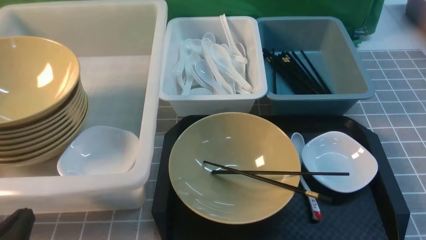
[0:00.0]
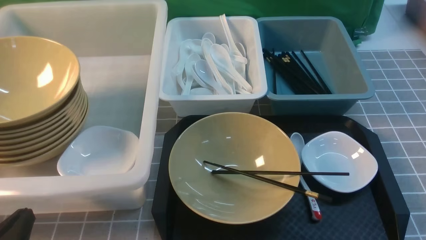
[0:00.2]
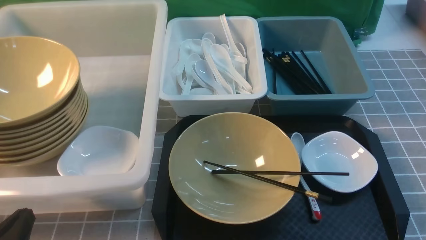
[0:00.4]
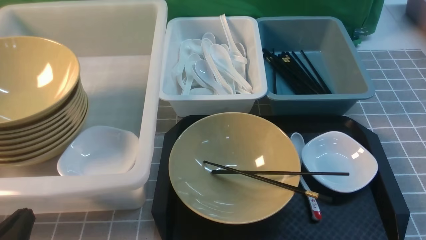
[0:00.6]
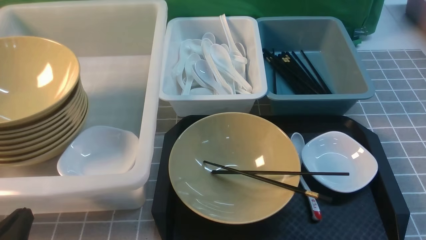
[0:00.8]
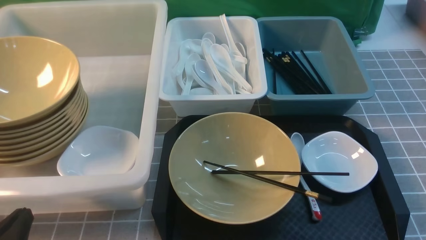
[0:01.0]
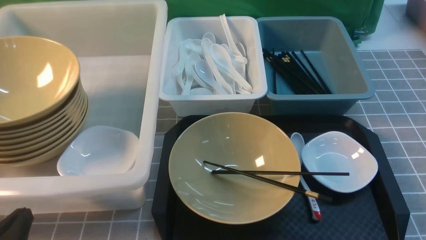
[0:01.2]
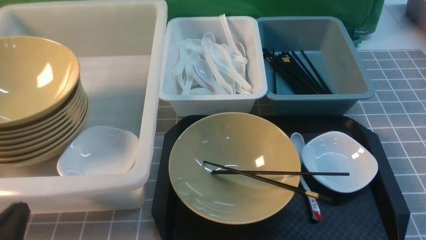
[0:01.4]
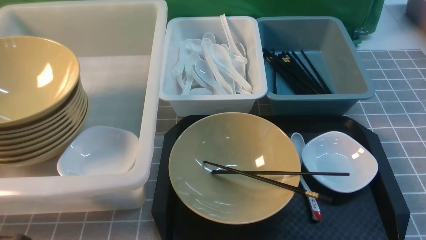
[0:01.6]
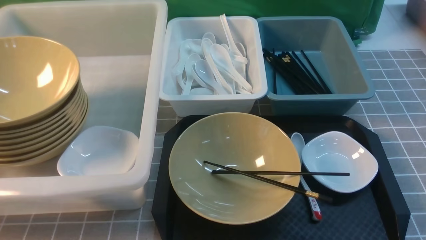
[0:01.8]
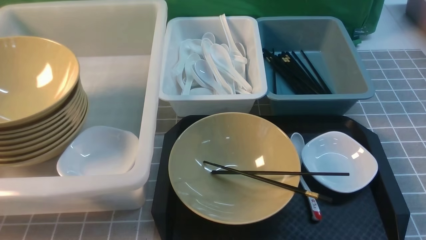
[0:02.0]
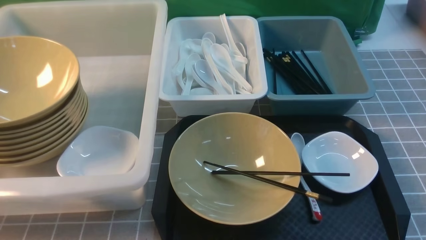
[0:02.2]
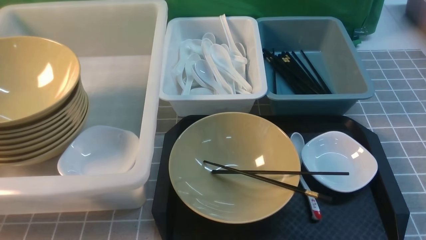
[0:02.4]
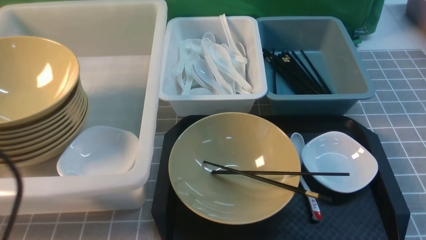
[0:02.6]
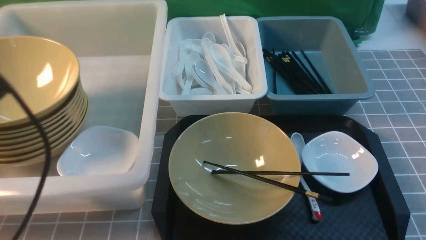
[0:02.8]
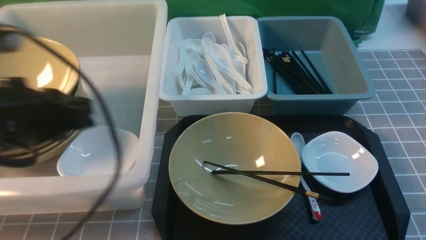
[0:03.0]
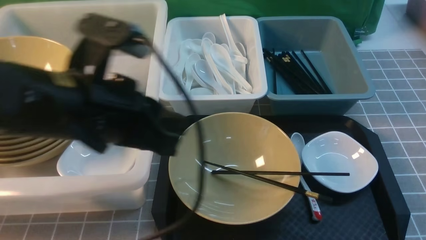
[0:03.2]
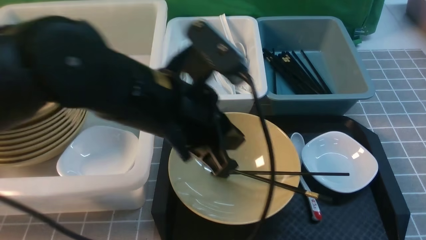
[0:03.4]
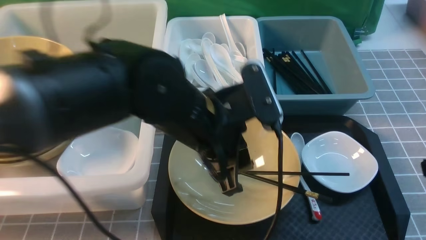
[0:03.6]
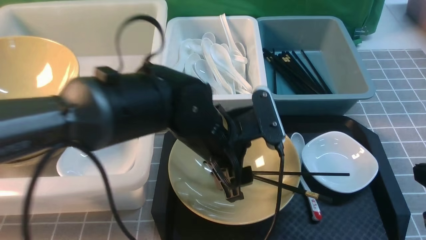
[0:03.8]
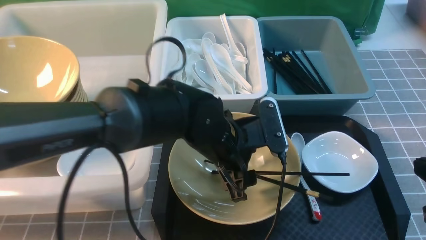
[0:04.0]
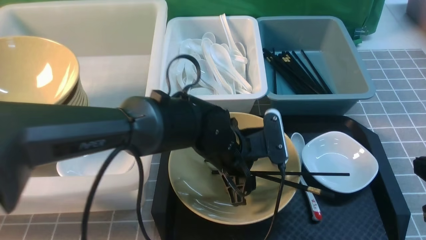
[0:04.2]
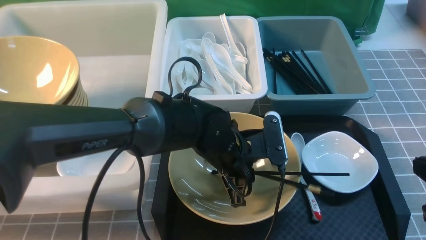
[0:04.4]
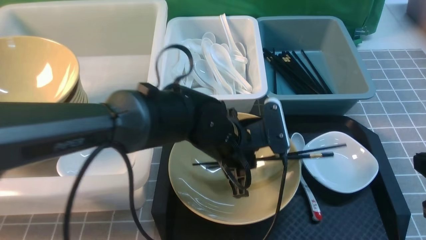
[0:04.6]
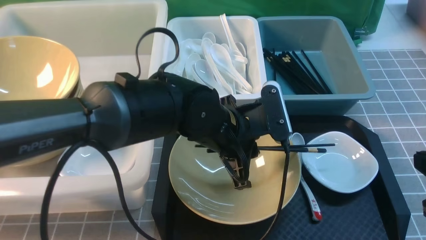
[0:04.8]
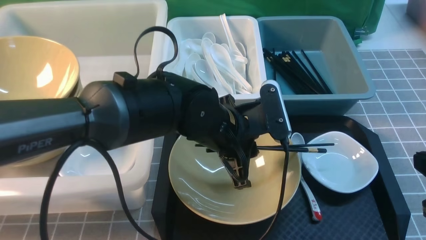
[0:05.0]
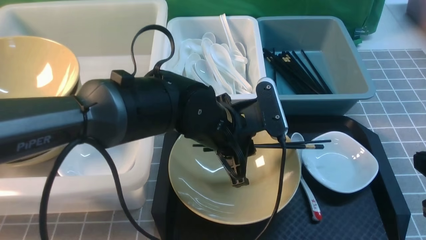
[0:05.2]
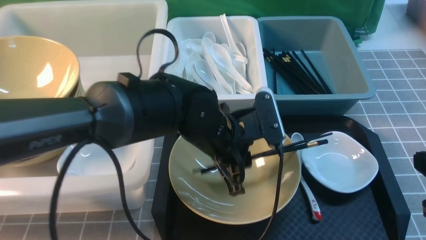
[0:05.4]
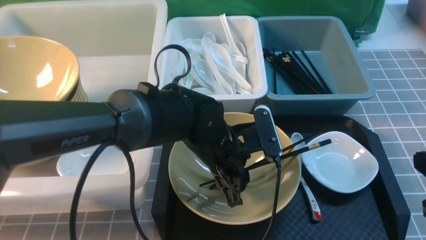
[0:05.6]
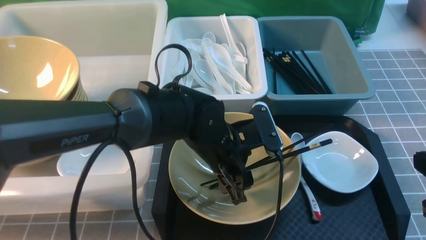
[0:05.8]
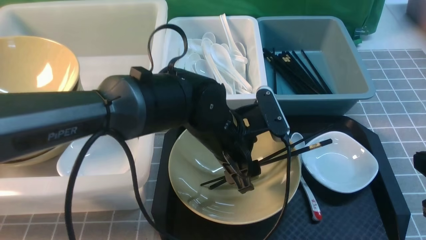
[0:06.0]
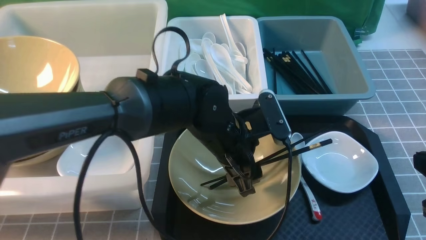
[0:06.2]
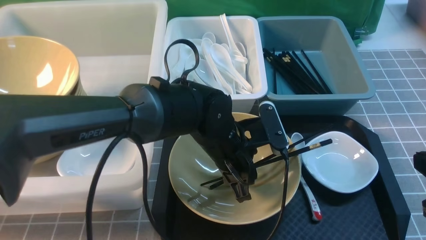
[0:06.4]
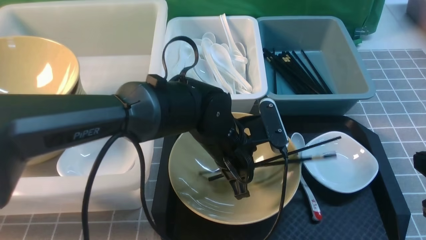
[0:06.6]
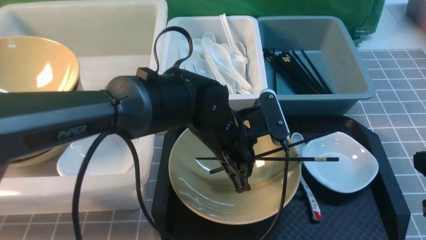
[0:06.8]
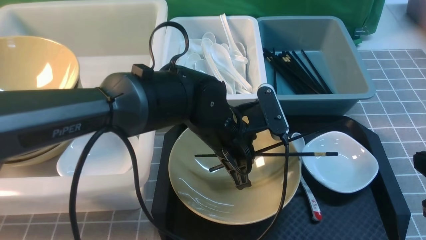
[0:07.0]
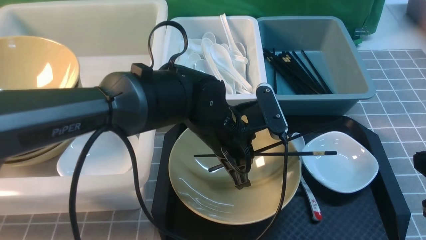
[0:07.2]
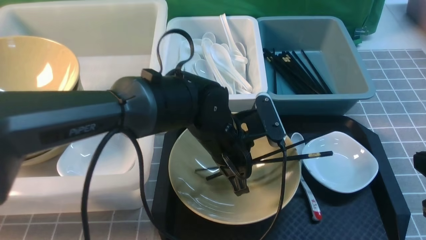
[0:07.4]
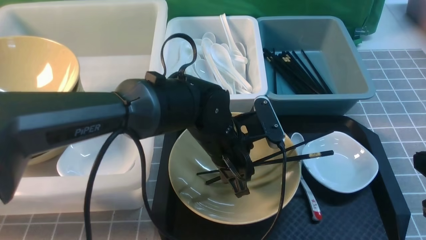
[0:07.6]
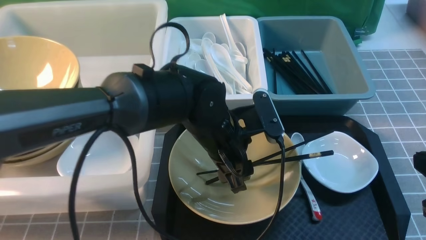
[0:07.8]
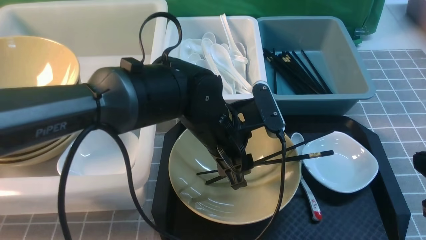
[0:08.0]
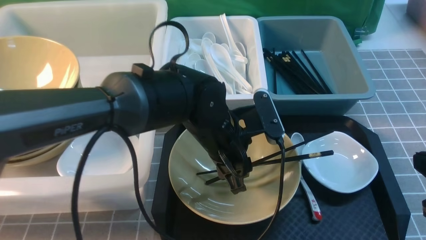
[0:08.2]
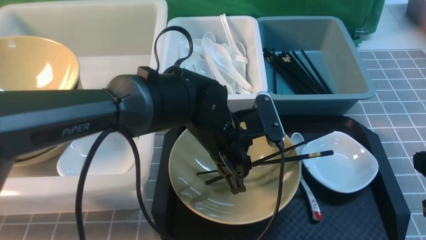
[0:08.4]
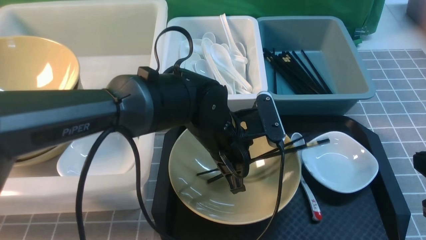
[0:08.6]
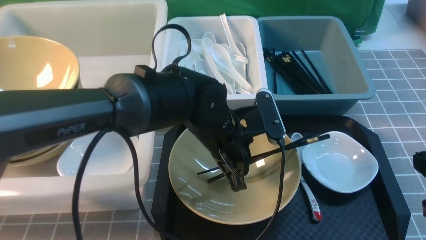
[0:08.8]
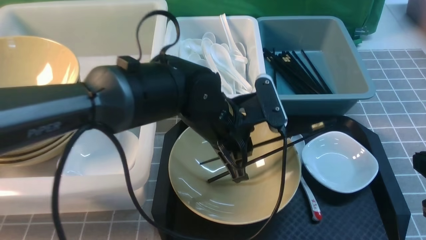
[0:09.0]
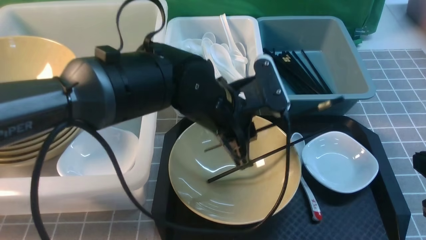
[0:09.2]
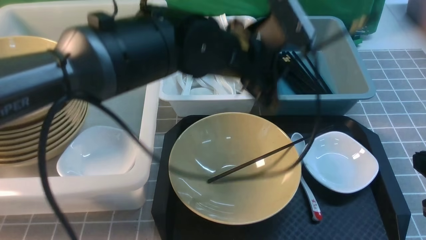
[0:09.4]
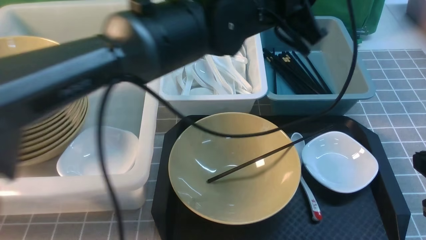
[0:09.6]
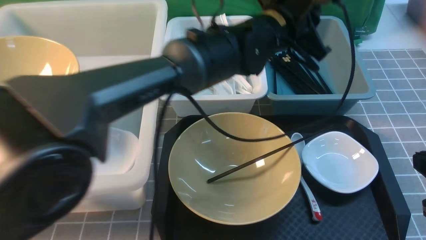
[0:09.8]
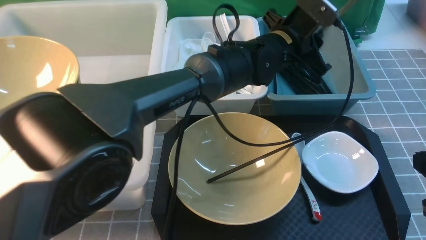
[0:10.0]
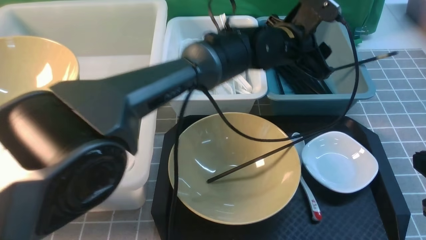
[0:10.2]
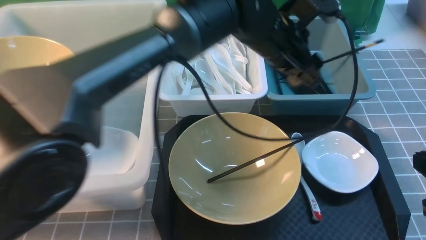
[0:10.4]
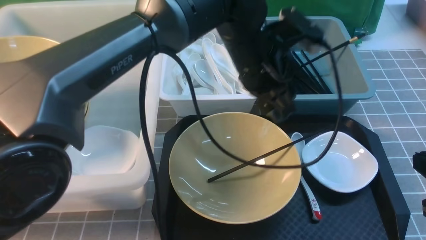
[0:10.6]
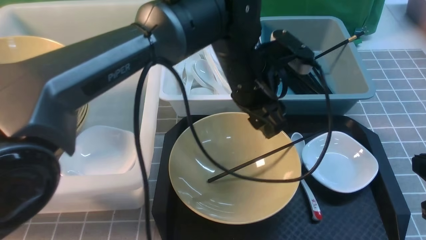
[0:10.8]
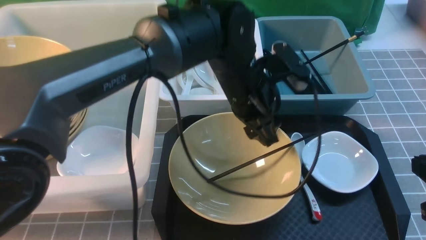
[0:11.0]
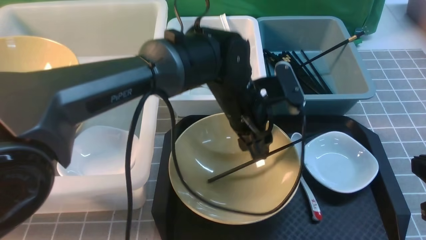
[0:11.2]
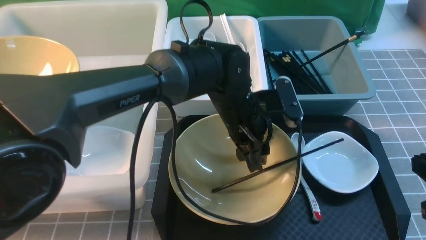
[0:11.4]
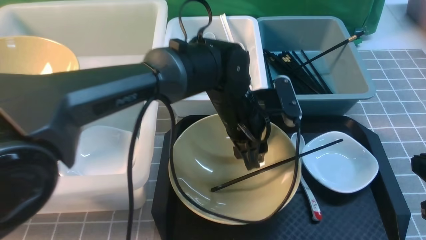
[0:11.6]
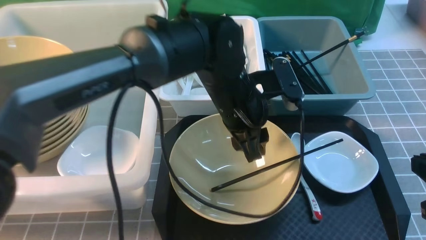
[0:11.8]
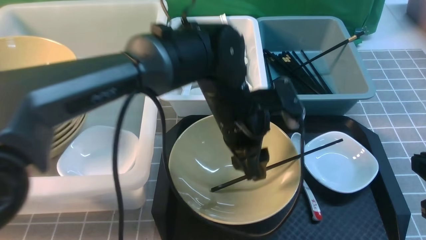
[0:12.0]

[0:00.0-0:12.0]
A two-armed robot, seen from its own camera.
Task of the whole recording: on grey table put chopsticks spoon bowls plates into blue grey white boxes.
Step, 0:00.0 to 0:09.0: use the left arm to grab a chopstick.
Step, 0:09.2 to 0:10.2: use the left arm to put a chopstick into the small storage box on the right.
0:01.6 to 0:03.0: The left gripper goes approximately 20 cm upward and forward, while the right gripper shifts approximately 10 cm upward, and closes.
0:03.0 to 0:04.4: The left gripper shifts about 30 cm to the right, downward and forward, and opens.
0:04.4 to 0:06.0: The left gripper opens its fingers.
0:06.0 to 0:07.6: The left gripper closes.
0:07.6 to 0:09.0: The left gripper closes up.
0:09.0 to 0:10.4: The left gripper goes roughly 15 cm forward, to the right and upward, and opens up.
0:10.4 to 0:12.0: The left gripper goes about 10 cm backward, to the left and downward.

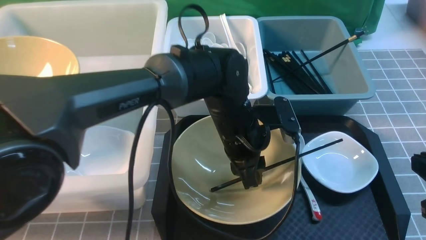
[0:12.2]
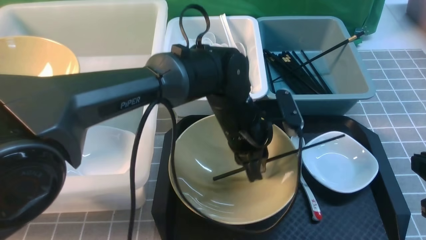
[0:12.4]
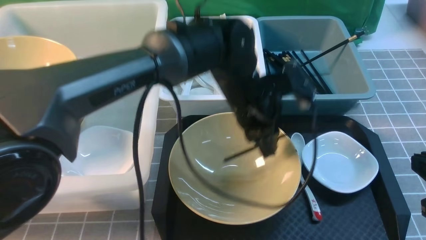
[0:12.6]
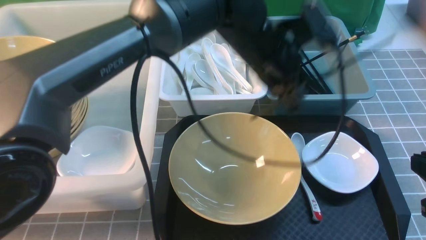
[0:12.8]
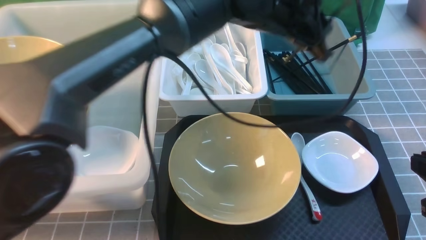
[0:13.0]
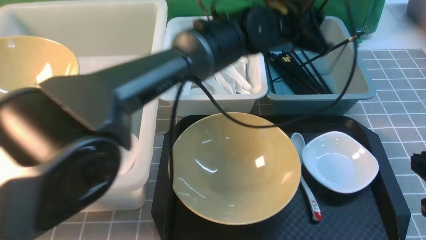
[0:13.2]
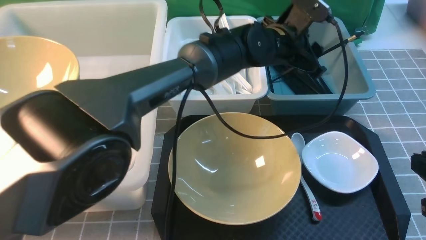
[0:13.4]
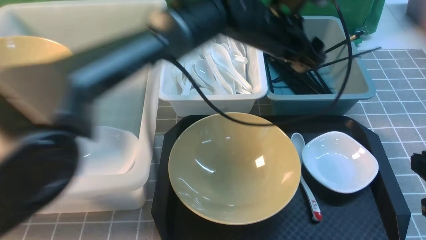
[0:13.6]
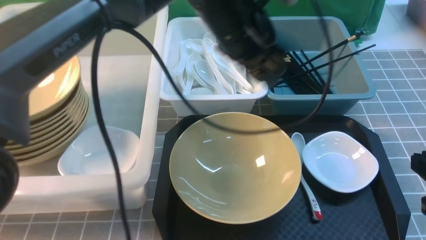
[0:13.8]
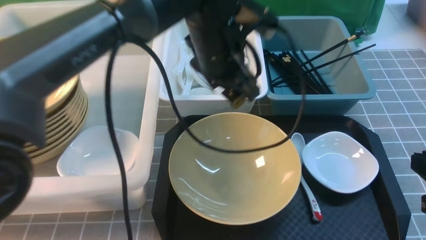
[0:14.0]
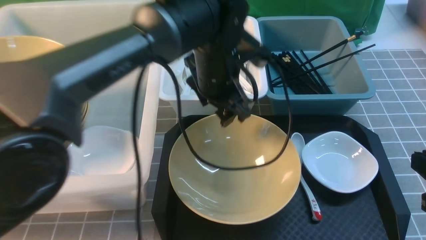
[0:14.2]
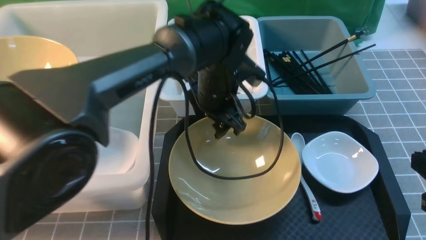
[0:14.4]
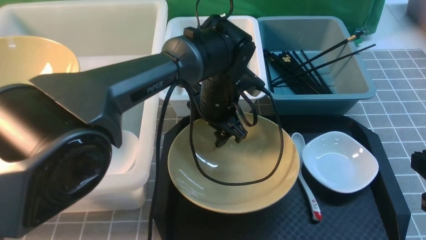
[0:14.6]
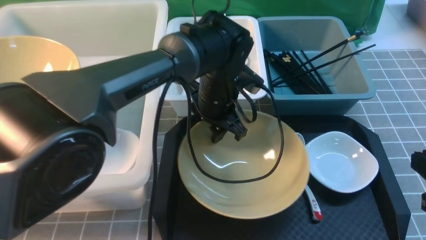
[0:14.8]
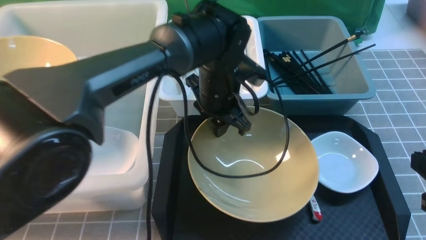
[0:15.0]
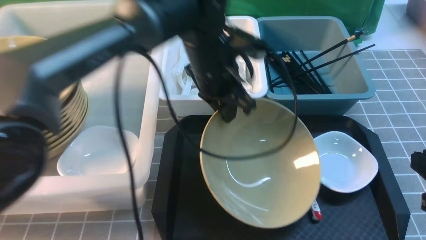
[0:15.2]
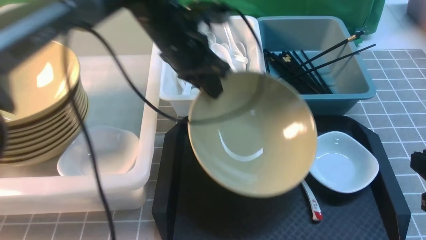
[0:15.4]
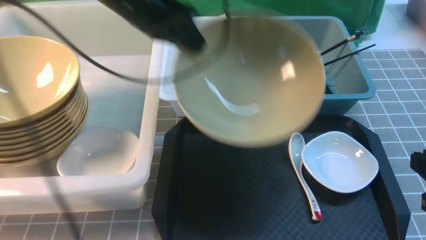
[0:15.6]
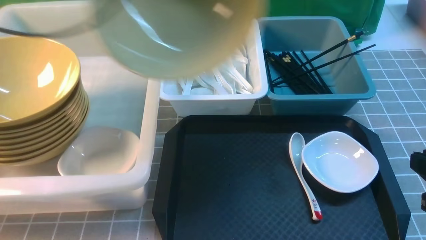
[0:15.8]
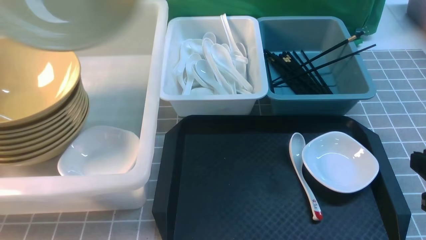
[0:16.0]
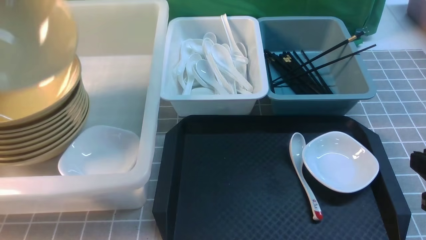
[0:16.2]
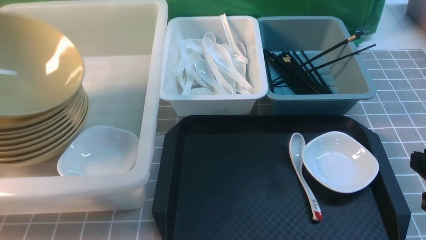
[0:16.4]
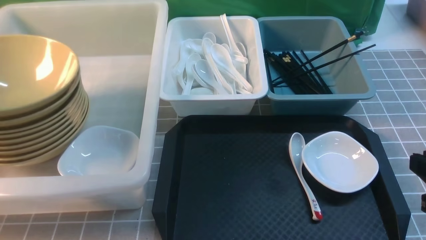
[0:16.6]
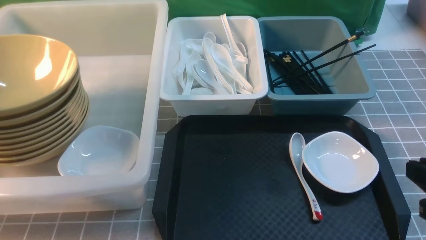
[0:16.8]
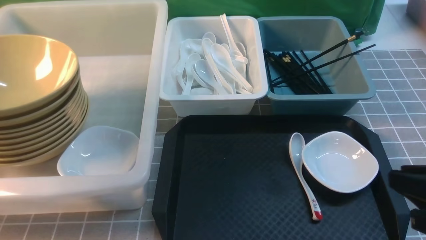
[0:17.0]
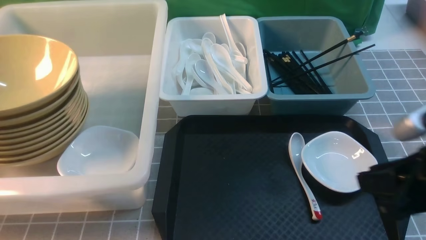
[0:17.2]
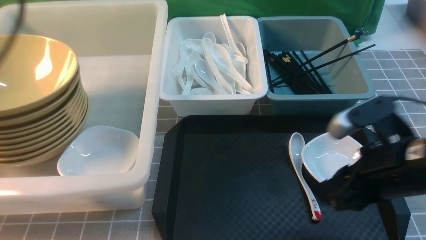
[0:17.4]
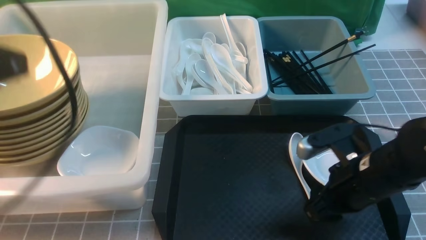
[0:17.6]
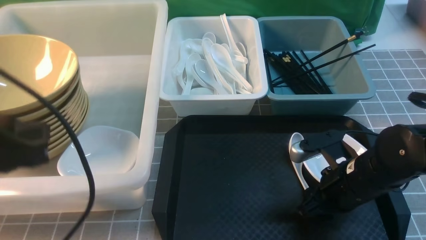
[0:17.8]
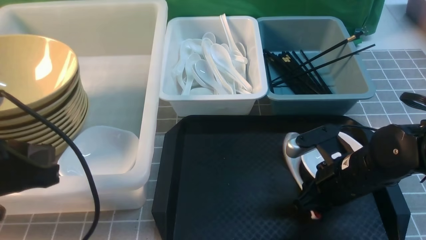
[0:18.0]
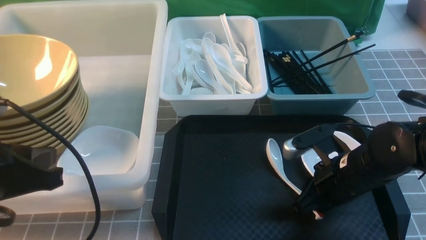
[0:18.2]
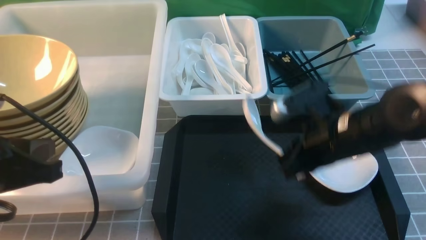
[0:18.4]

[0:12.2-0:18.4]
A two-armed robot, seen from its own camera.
Task of the whole recording: on grey table put chopsticks spoon bowls plates into blue grey white boxes.
Step, 0:12.8 to 0:13.6: use the left arm to put a chopstick into the small storage box on the right.
Step, 0:13.8 to 0:15.0: use the left arm to grab the yellow noodle bowl on the left.
Step, 0:15.2 to 0:16.6: use the left arm to put the noodle bowl into the large storage box on the left.
Step, 0:17.0 to 0:18.2: use the right arm to grab the soup spoon in the middle.
0:12.2 to 0:13.8: The left gripper travels upward and forward by about 10 cm, and opens its fingers.
0:13.8 to 0:15.4: The left gripper travels to the left by some 10 cm, reaches roughly 10 cm downward, then returns, and closes.
0:15.4 to 0:16.8: The left gripper goes roughly 35 cm to the left, and opens up.
0:16.8 to 0:18.4: The right gripper is displaced forward and to the left by some 20 cm, and opens, then closes again, while the left gripper shifts approximately 20 cm to the right and backward, and closes up.
